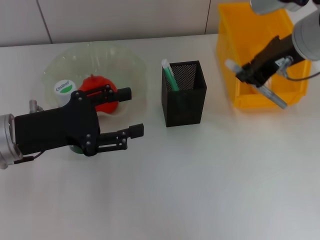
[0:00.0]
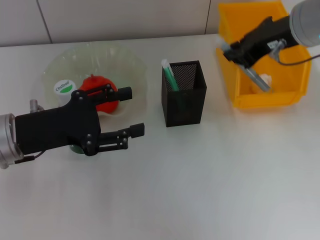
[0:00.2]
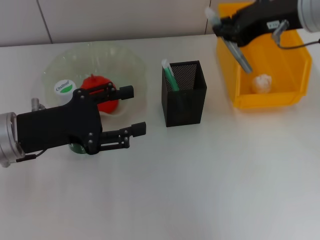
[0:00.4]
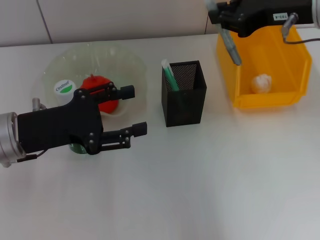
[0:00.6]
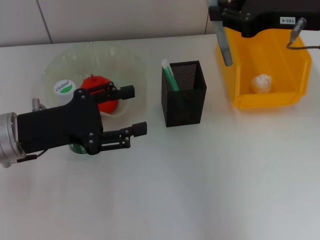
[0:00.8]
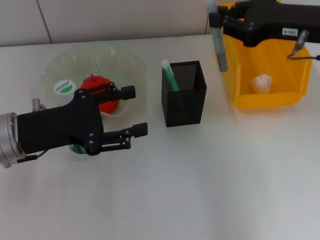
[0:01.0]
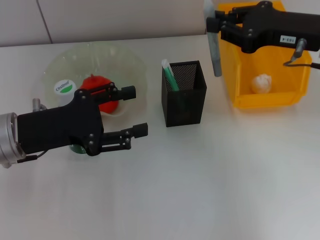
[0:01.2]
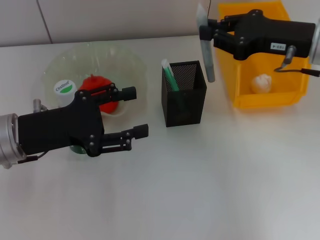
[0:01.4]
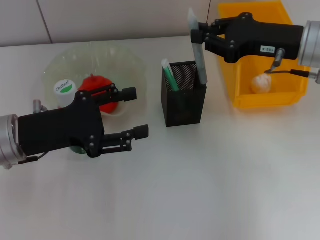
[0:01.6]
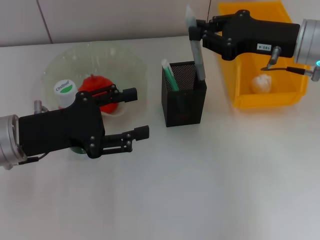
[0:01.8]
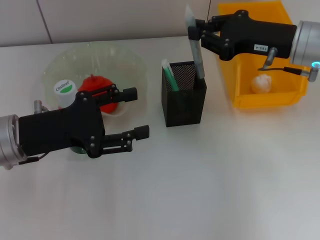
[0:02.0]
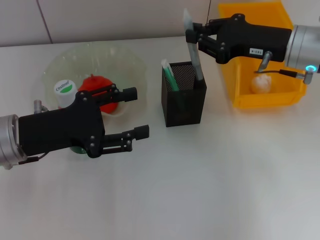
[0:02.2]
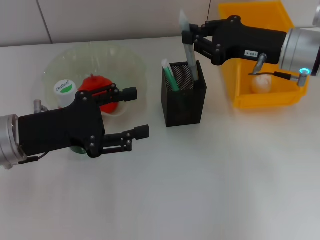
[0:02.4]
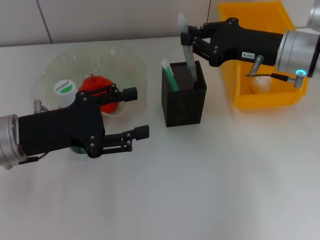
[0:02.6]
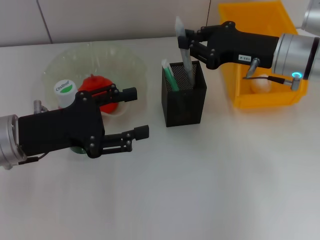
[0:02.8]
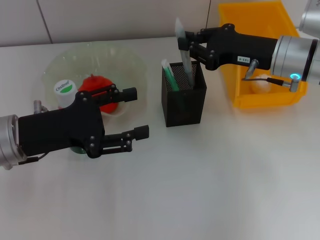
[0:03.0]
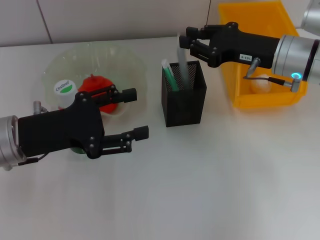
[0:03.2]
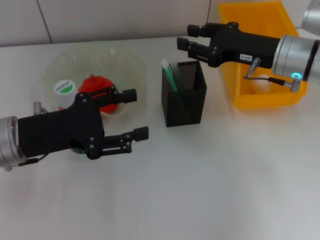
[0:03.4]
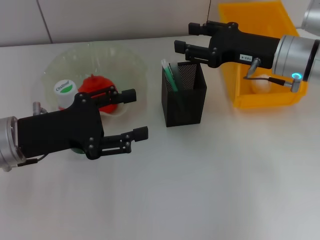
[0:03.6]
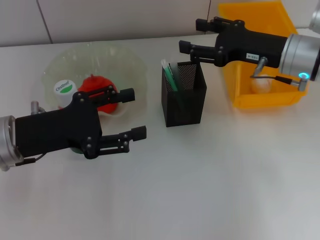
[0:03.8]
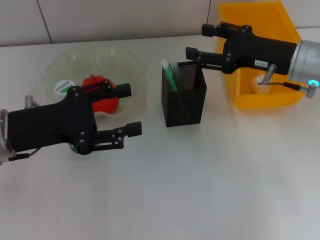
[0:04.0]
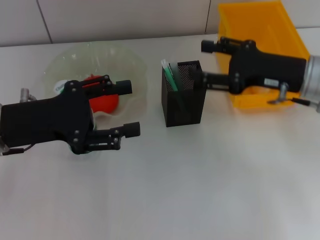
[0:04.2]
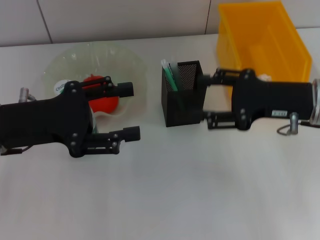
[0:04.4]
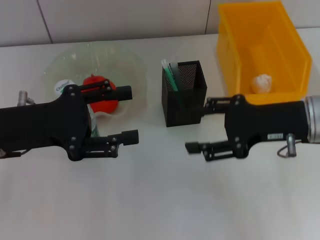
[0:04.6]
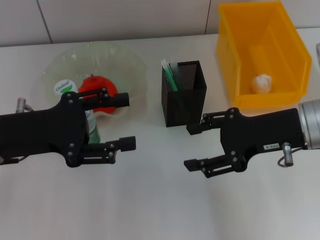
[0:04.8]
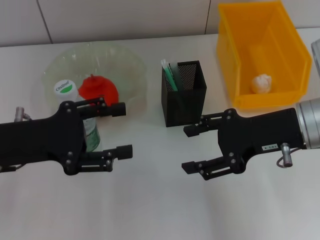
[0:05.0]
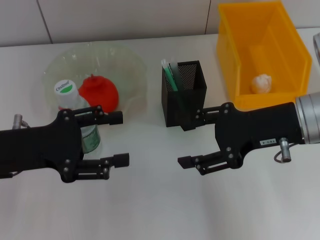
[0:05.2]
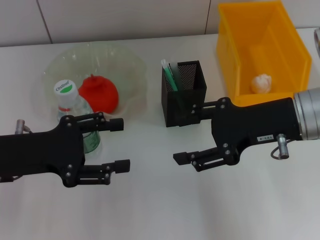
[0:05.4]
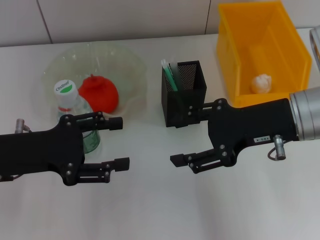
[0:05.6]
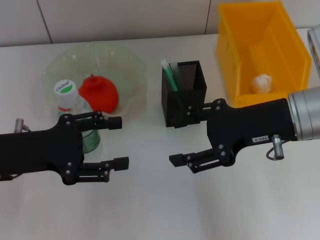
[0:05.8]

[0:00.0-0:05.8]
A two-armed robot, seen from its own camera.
Step, 0:00.0 to 0:03.2: Place the gray glue into the pen holder with the right hand.
0:00.0 to 0:01.4: The right gripper goes some 5 cm downward.
0:01.4 to 0:02.8: The right gripper moves approximately 5 cm.
0:02.8 to 0:04.4: The right gripper moves backward, some 10 cm, and opens up.
0:04.4 to 0:05.8: The right gripper shifts by roughly 5 cm.

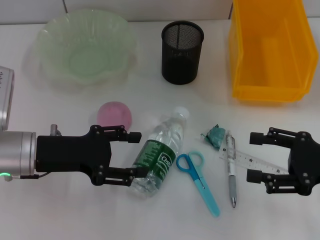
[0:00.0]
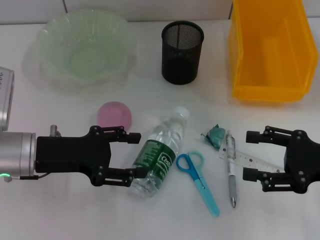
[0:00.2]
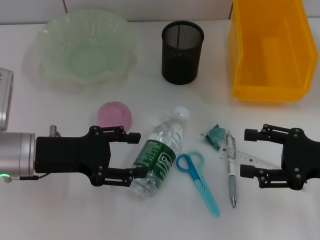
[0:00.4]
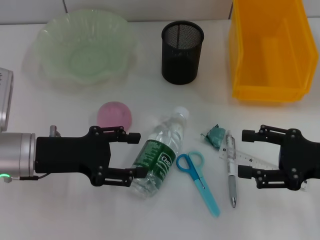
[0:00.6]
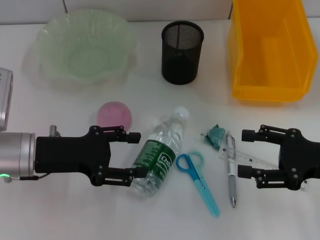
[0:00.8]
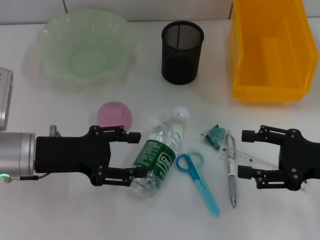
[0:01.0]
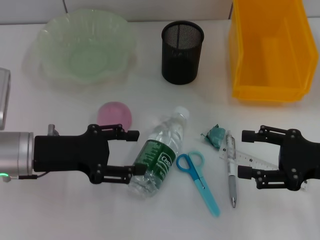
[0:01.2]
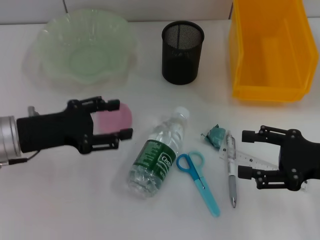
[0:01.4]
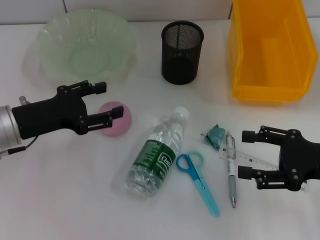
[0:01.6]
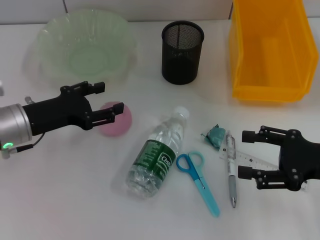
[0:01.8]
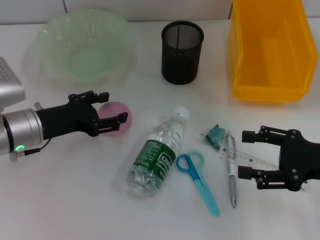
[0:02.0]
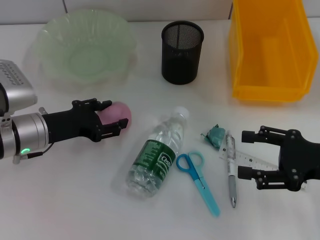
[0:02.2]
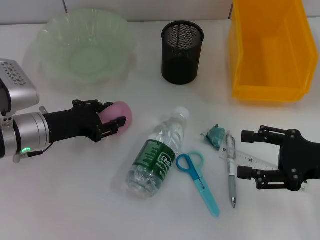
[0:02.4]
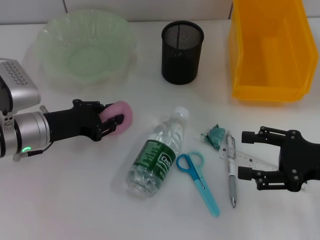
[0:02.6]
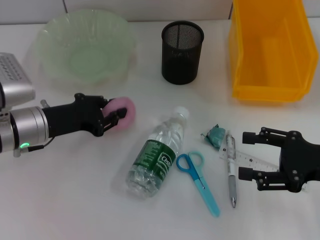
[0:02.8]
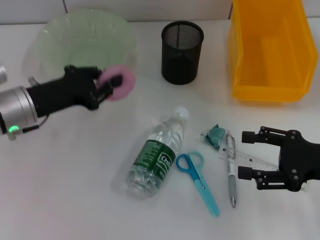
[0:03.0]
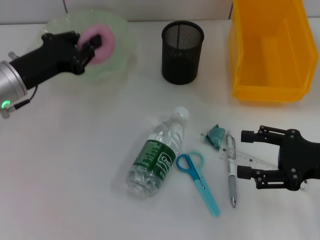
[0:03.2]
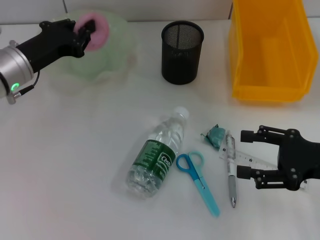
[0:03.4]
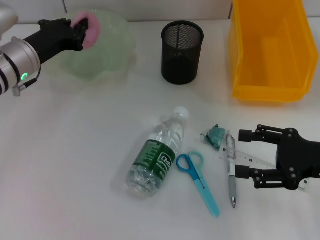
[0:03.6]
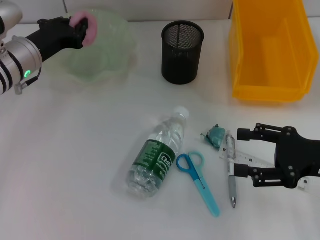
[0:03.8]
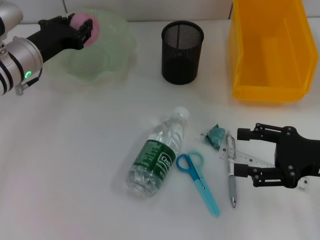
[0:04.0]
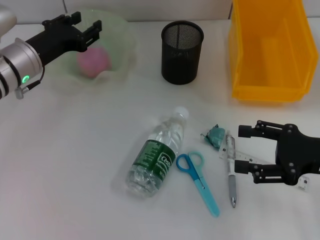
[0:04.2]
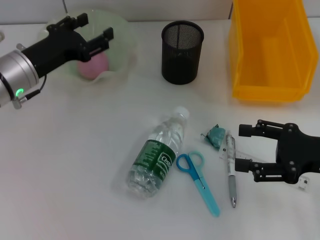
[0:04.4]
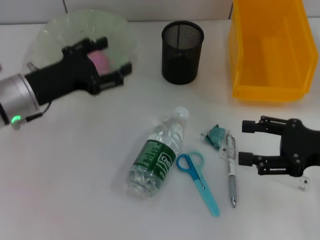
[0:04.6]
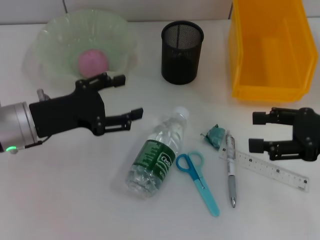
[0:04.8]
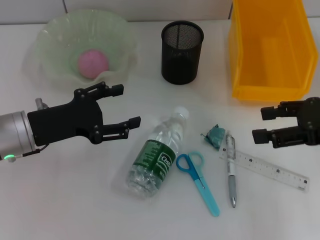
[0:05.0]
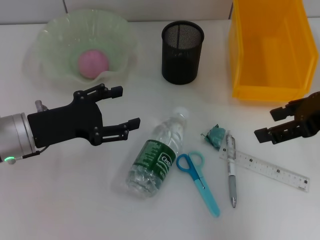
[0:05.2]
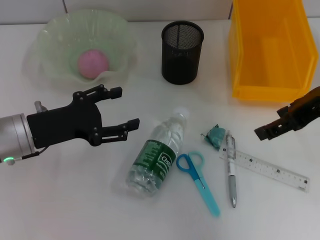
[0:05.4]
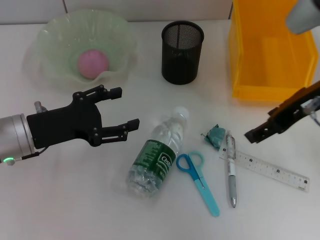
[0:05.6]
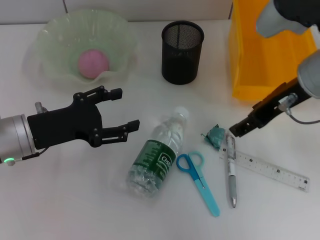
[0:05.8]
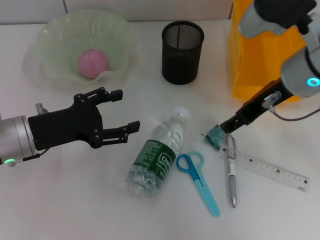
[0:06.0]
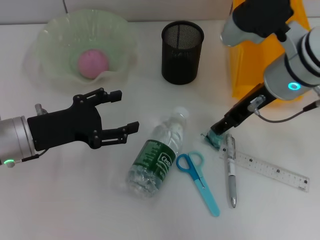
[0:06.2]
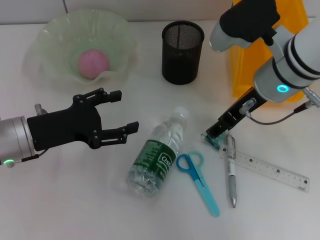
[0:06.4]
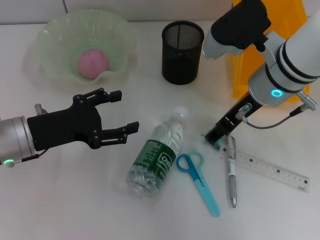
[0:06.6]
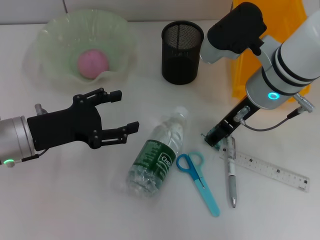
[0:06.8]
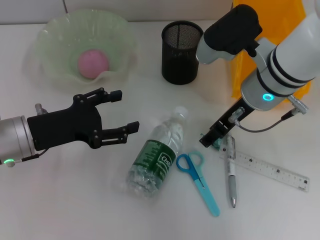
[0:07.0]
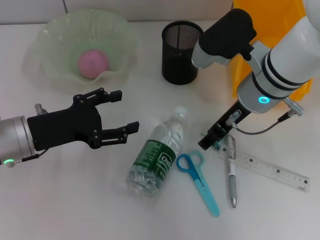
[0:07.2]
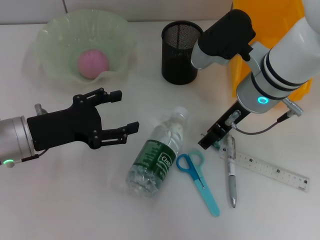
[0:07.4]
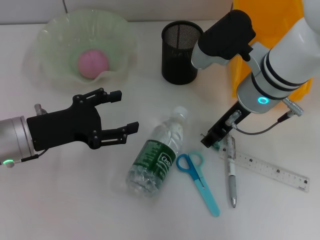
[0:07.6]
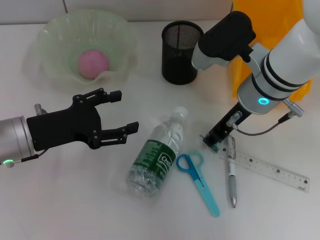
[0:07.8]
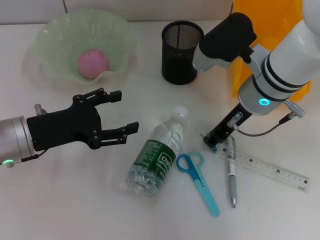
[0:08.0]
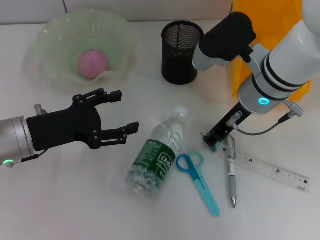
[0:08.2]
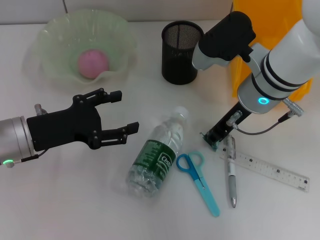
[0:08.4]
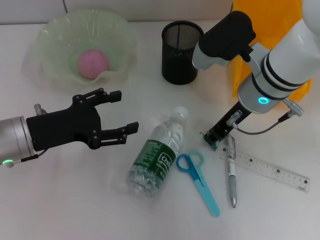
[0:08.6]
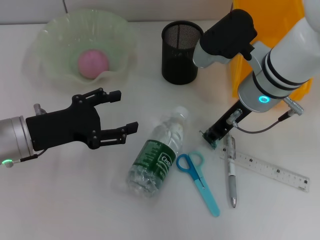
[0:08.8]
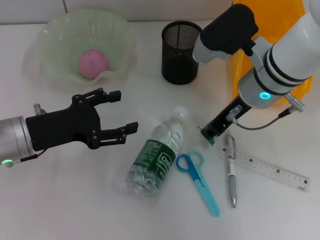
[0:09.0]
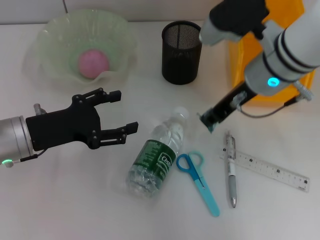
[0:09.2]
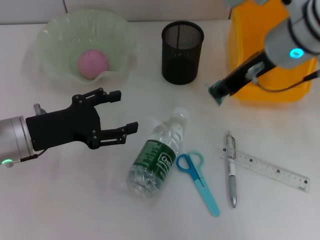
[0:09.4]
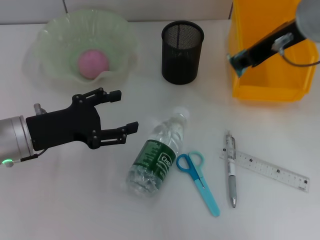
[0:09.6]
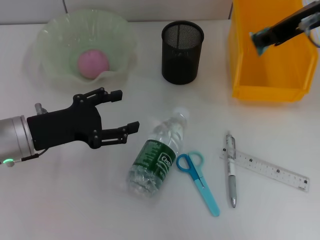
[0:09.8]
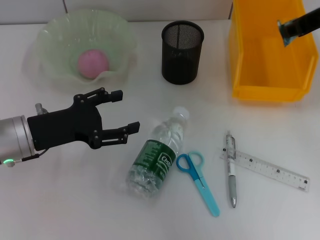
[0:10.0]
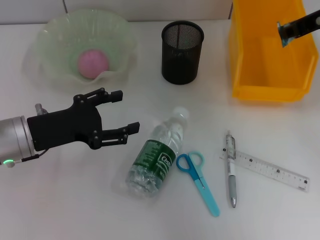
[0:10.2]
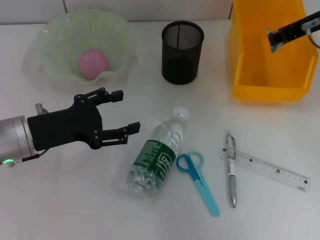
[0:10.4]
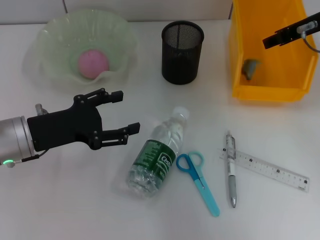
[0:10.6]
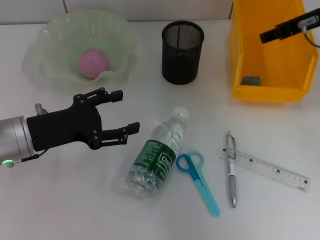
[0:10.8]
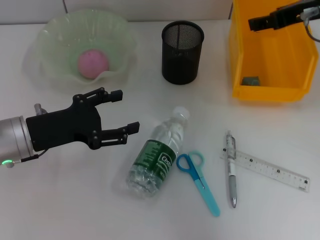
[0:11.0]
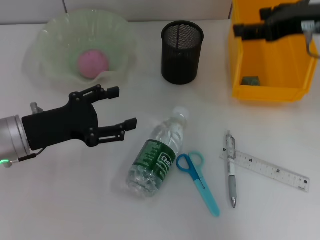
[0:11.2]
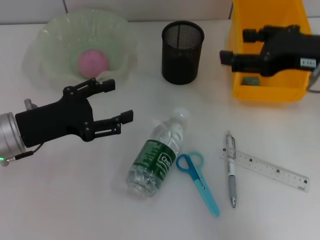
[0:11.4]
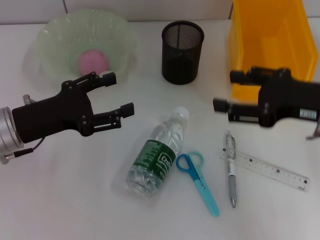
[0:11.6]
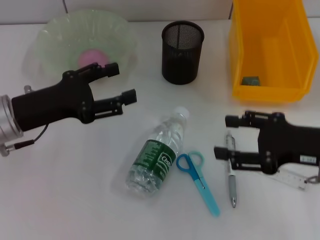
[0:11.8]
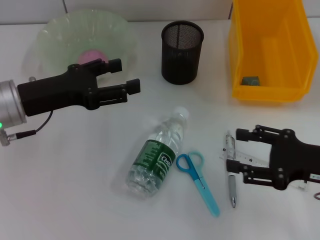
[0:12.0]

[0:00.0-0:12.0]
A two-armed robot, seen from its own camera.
Step, 0:00.0 to 0:02.4: Grab the peach with the left hand.
Step, 0:02.8 to 0:04.2: Place the peach into the fruit bowl with the left hand.
Step, 0:04.4 to 0:08.6: Grab the plastic with the right hand.
Step, 0:08.8 to 0:10.8: Place the plastic into the trash can with the right hand.
0:01.6 to 0:03.0: The left gripper closes its fingers.
0:03.0 to 0:04.4: The left gripper opens.
0:04.4 to 0:06.0: The left gripper goes about 5 cm backward, and opens up; the right gripper is displaced to the left, upward and forward by approximately 20 cm.
0:06.0 to 0:07.6: The right gripper travels downward by about 5 cm.
0:07.6 to 0:09.0: The right gripper closes its fingers.
0:09.0 to 0:10.4: The right gripper moves to the right and upward, about 15 cm.
0:10.4 to 0:12.0: The right gripper heads backward and downward, covering some 20 cm, and opens its fingers. Meanwhile the left gripper ends up roughly 5 cm from where it was.

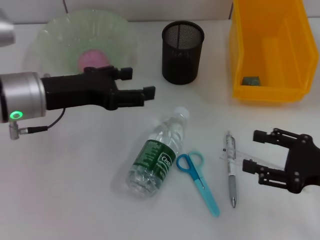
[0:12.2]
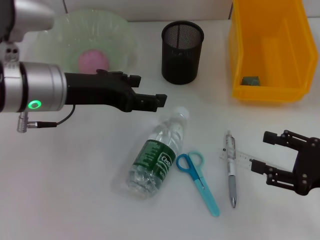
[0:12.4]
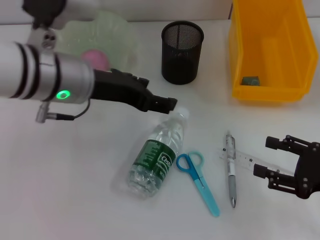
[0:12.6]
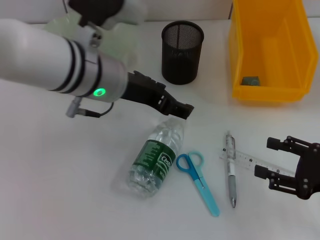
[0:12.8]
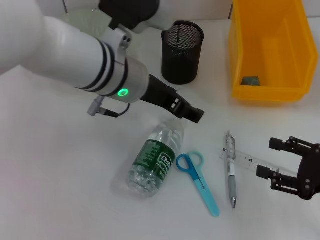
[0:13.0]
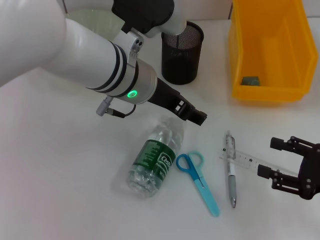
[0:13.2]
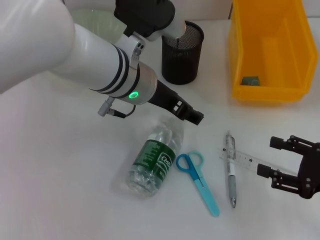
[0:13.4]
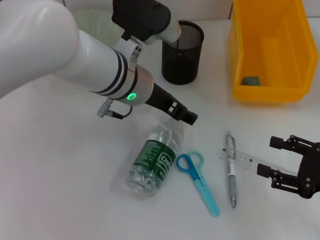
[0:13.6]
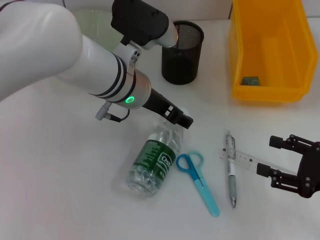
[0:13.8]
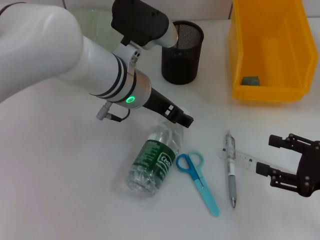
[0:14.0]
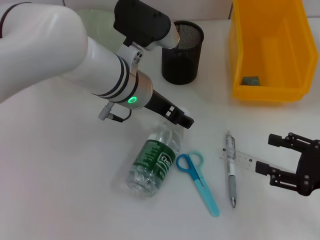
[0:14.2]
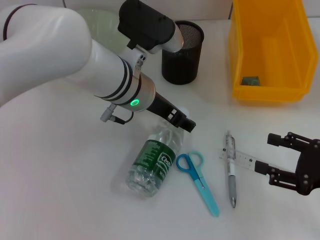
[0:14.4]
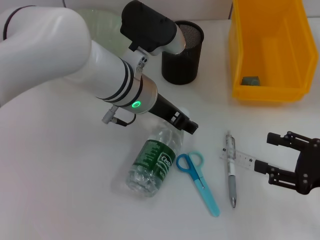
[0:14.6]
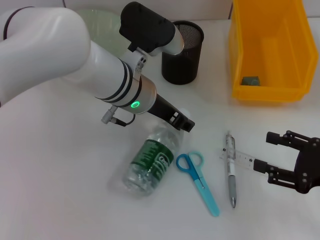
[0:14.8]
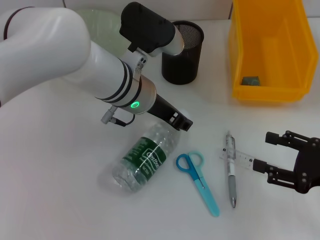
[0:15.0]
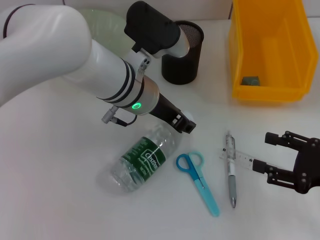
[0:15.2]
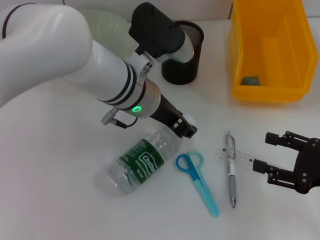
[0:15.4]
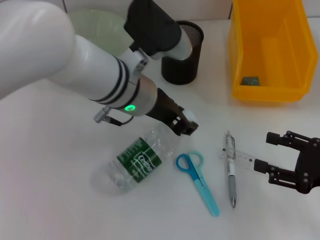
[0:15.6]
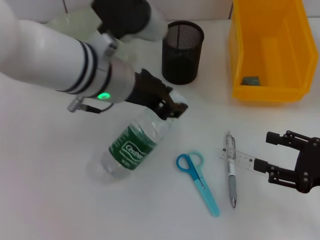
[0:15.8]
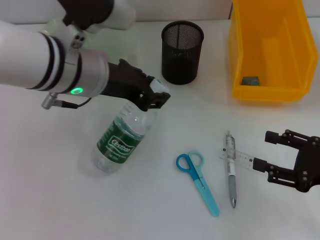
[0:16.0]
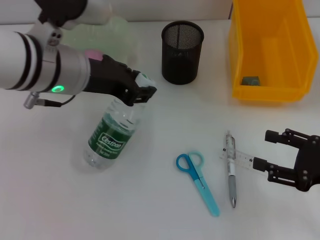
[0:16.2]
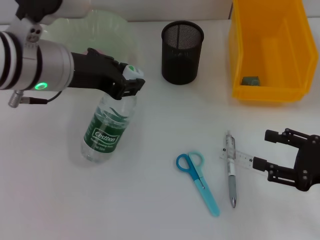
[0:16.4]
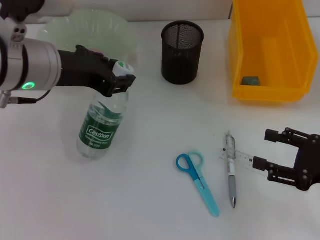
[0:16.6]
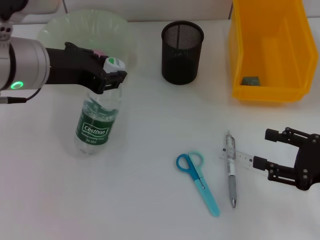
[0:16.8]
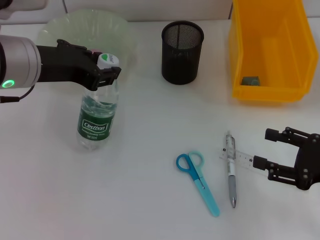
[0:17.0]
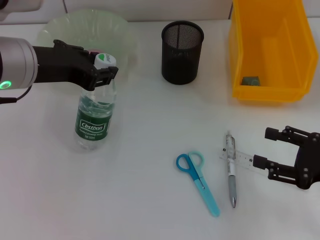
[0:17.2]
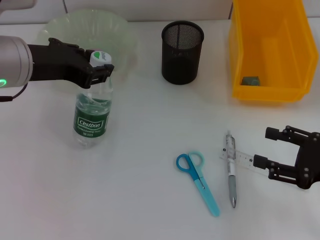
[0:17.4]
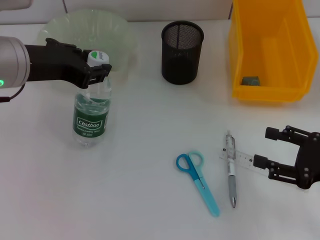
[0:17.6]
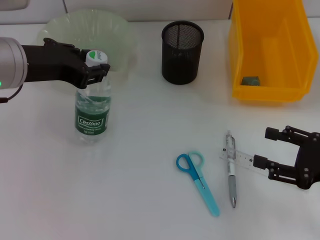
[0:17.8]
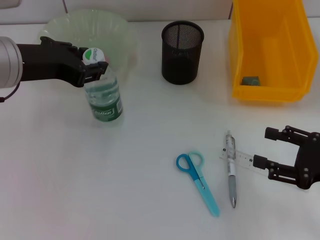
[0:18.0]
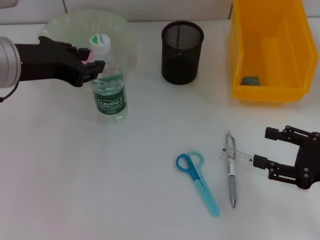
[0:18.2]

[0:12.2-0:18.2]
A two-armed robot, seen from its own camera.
Step, 0:12.2 to 0:15.2: Grab the water bottle with the left hand.
0:12.2 to 0:13.8: The left gripper shifts approximately 15 cm to the right.
0:13.8 to 0:15.2: The left gripper closes.
0:15.2 to 0:16.6: The left gripper is displaced to the left and upward by approximately 15 cm.
0:16.6 to 0:18.2: The grippers make only small movements.
